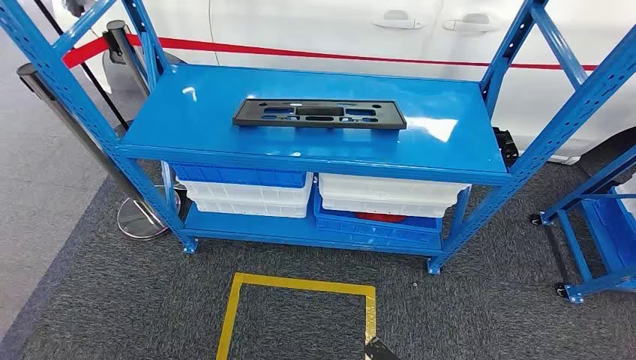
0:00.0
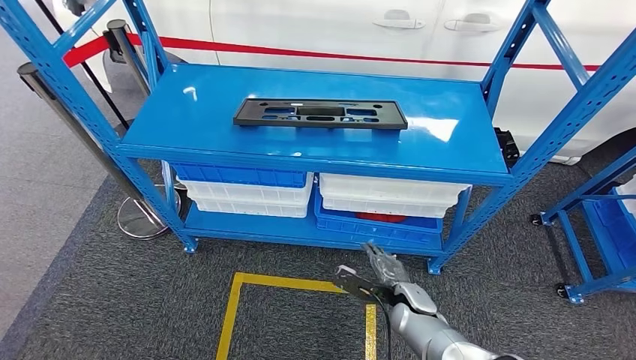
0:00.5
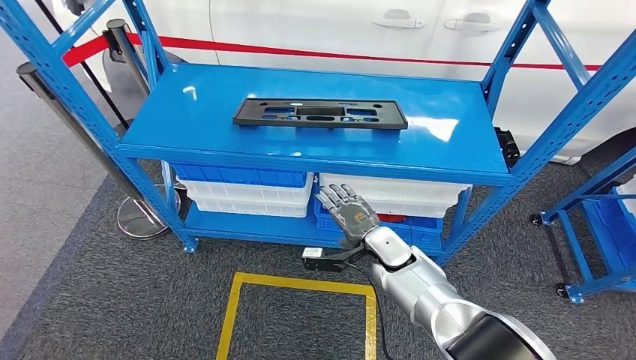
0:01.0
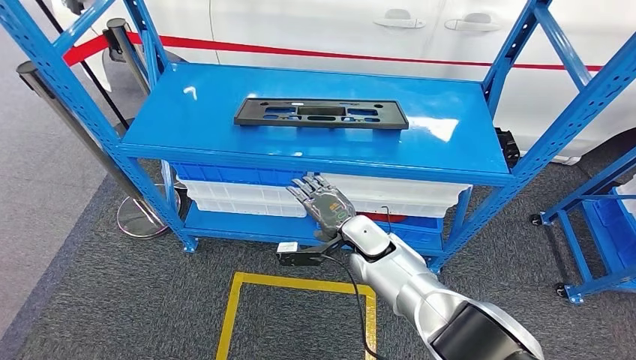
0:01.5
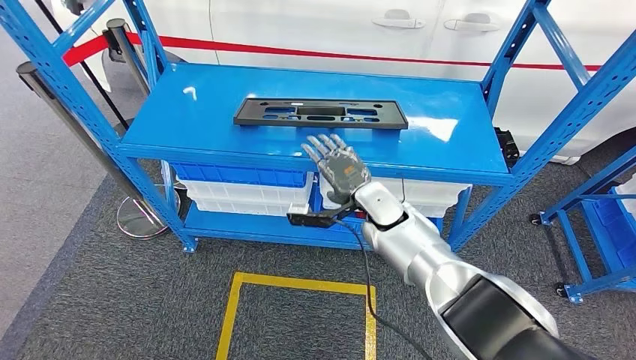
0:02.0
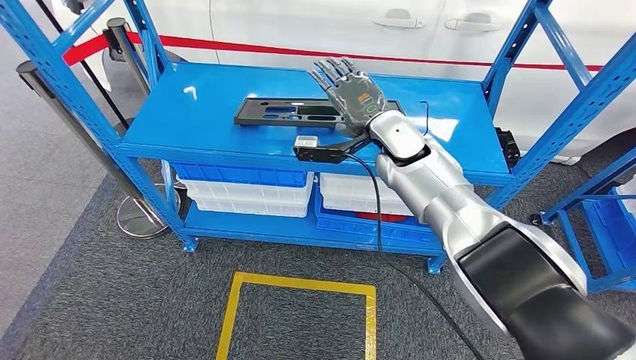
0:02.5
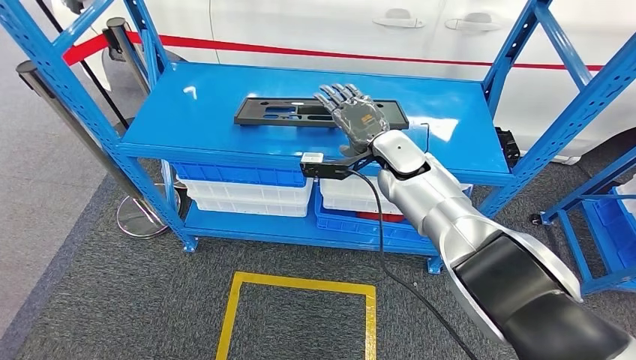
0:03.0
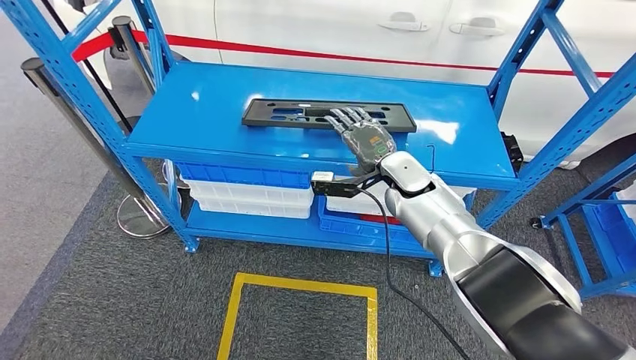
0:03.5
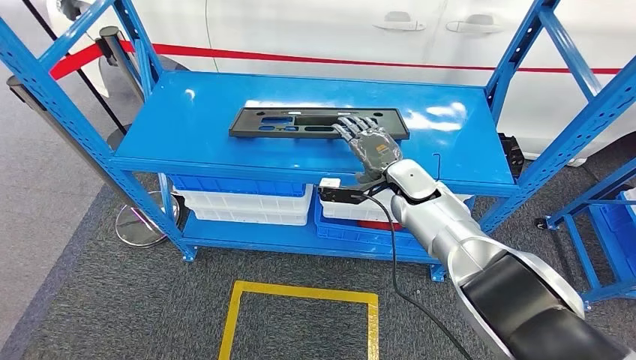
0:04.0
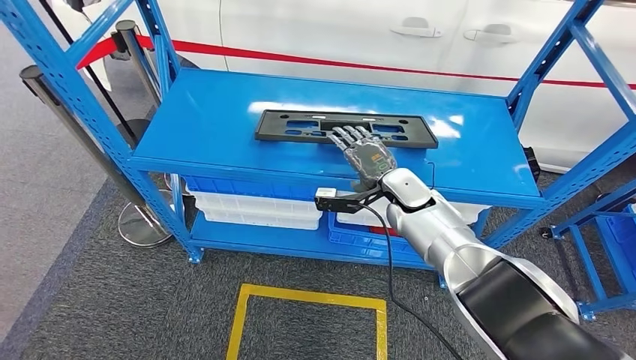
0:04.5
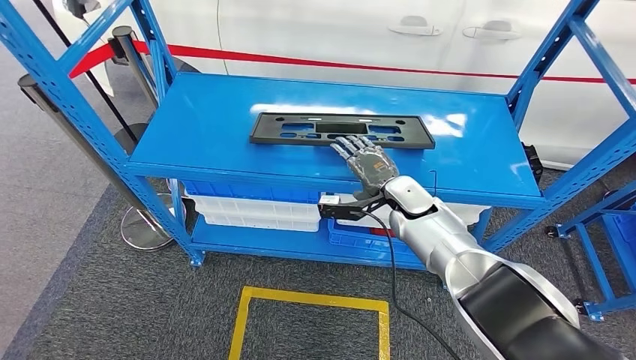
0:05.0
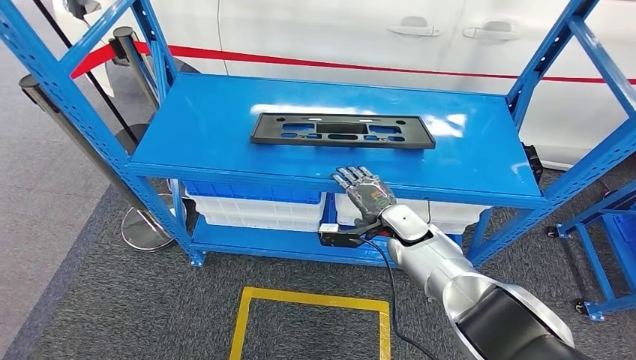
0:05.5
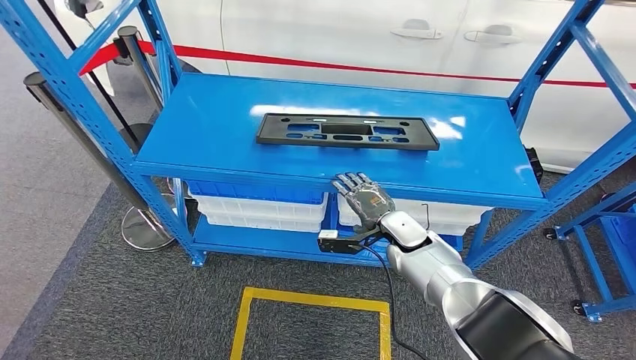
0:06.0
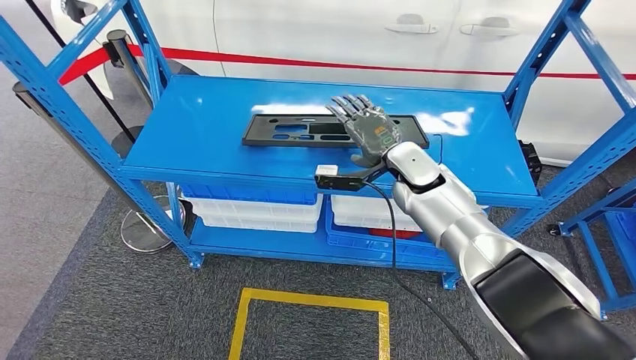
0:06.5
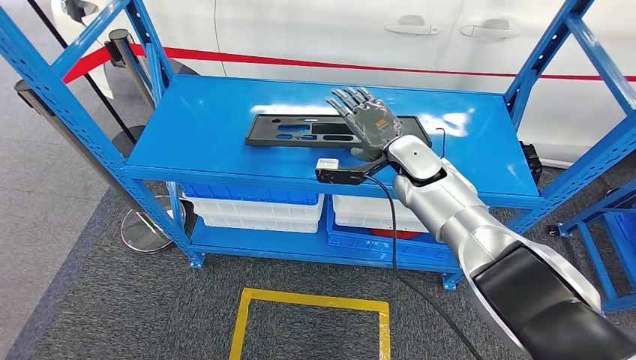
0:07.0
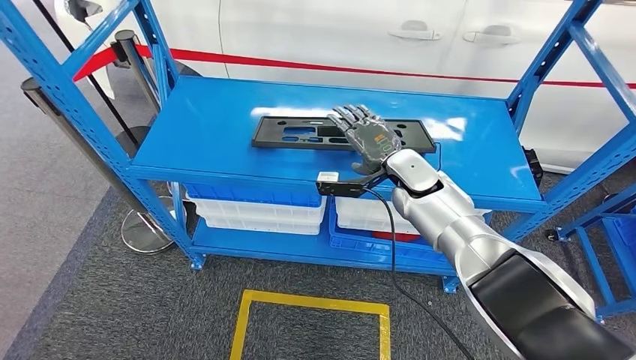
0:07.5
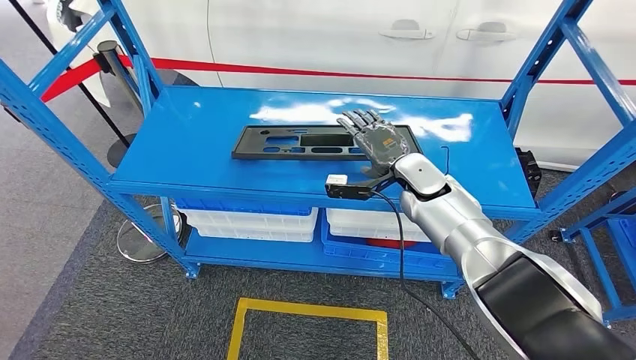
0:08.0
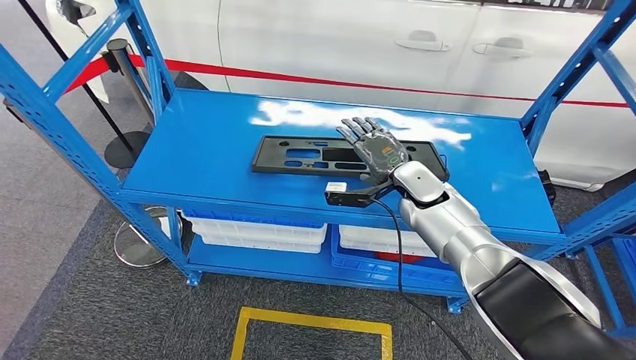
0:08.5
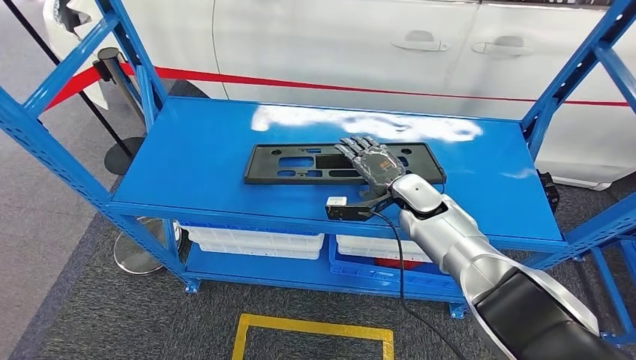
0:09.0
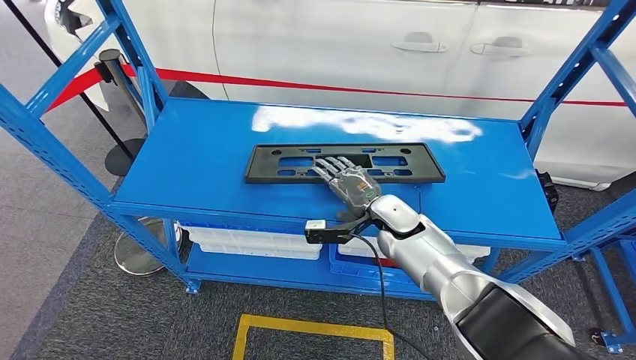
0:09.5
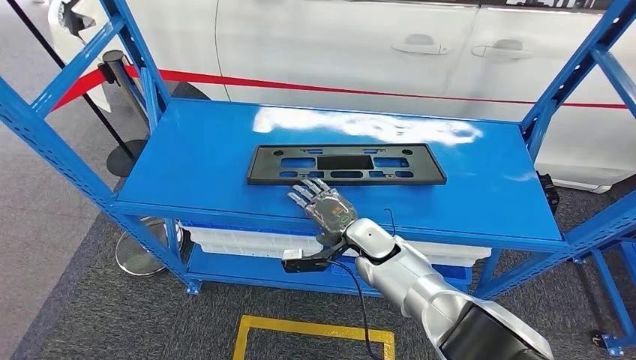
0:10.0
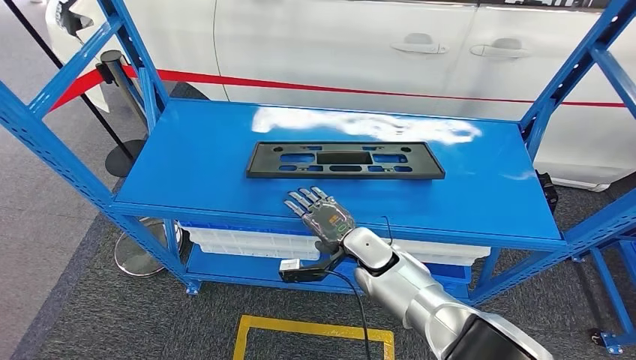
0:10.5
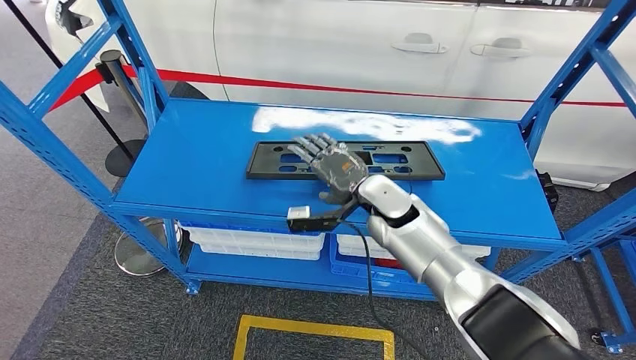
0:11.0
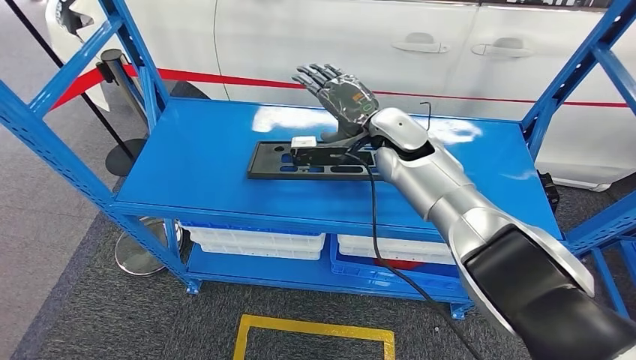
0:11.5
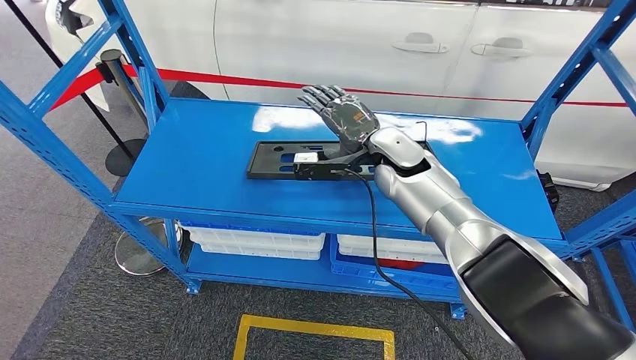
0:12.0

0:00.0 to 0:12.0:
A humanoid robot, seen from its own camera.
0:10.0 to 0:12.0: The right hand moves upward and forward, some 20 cm.

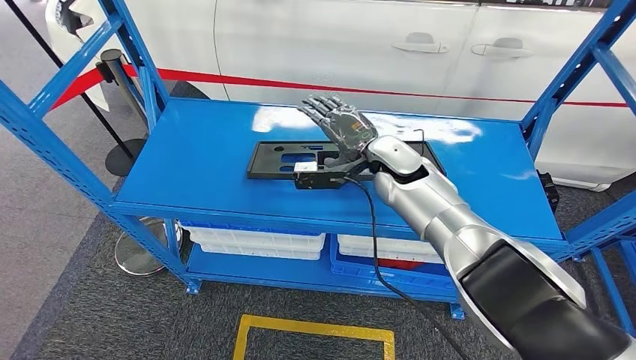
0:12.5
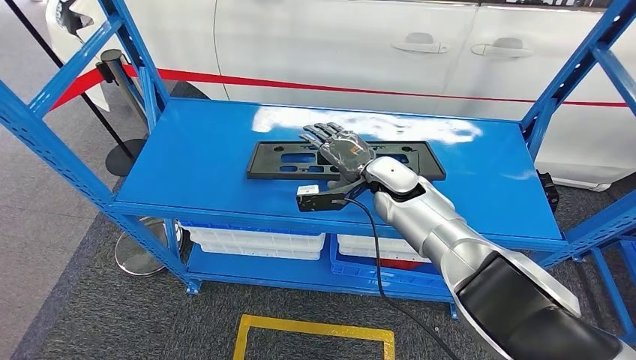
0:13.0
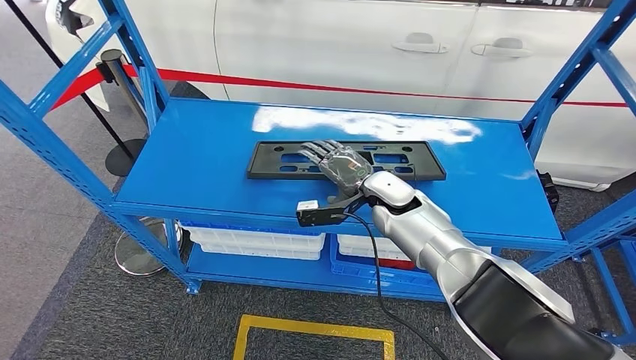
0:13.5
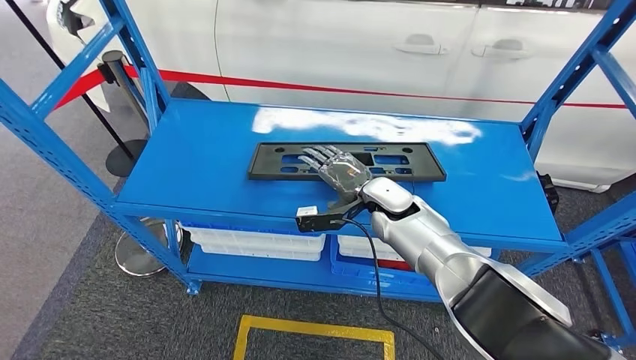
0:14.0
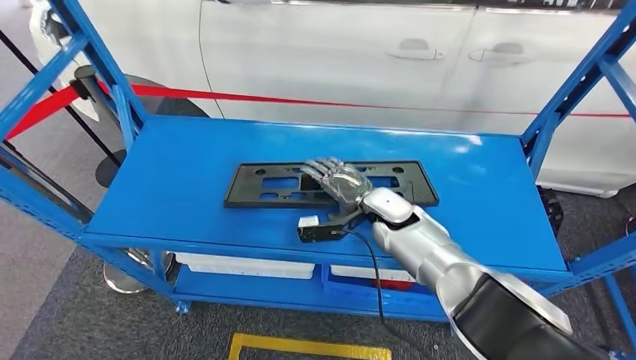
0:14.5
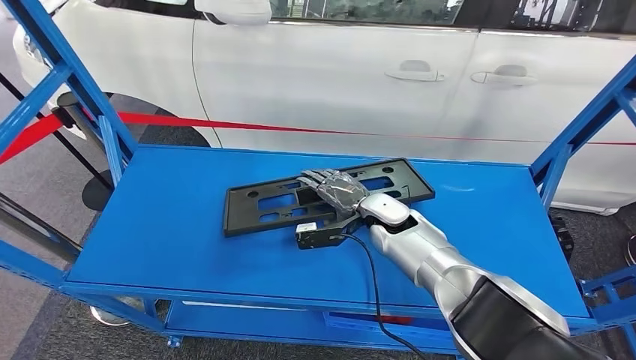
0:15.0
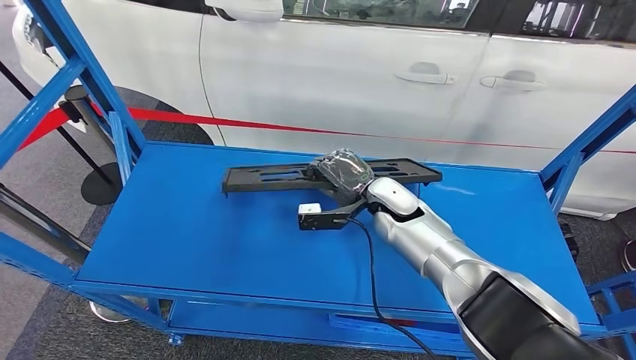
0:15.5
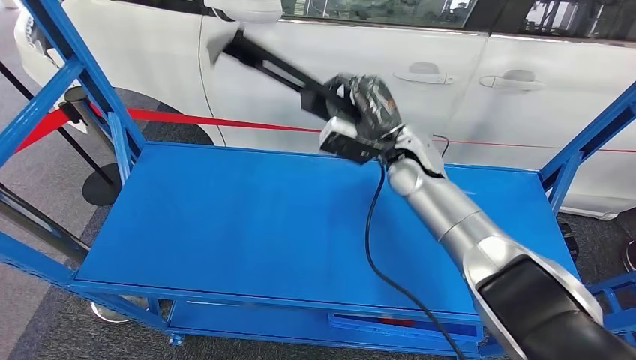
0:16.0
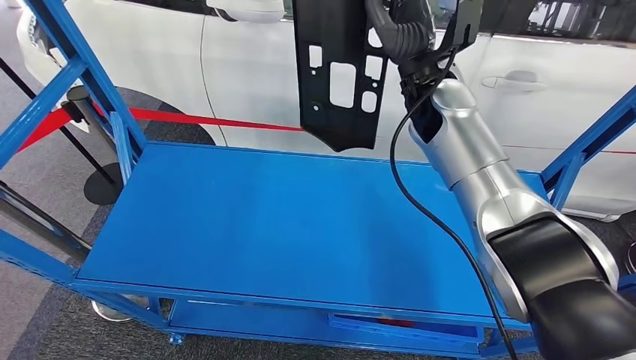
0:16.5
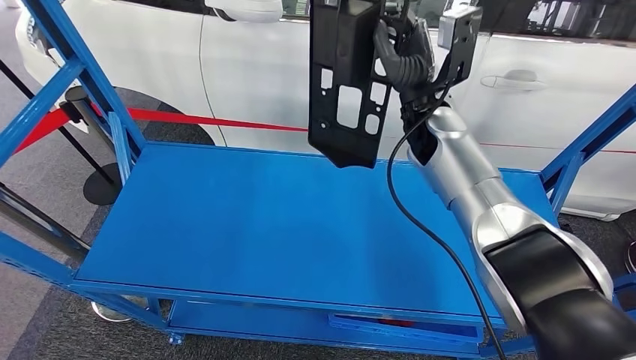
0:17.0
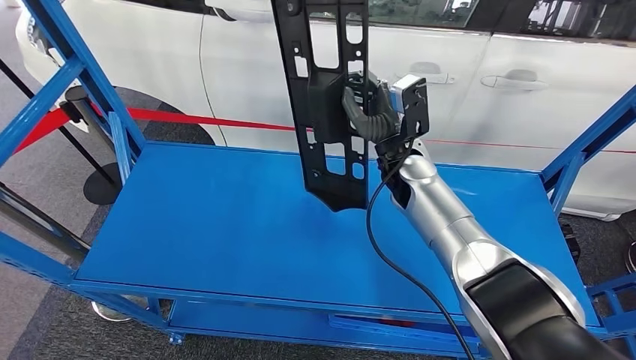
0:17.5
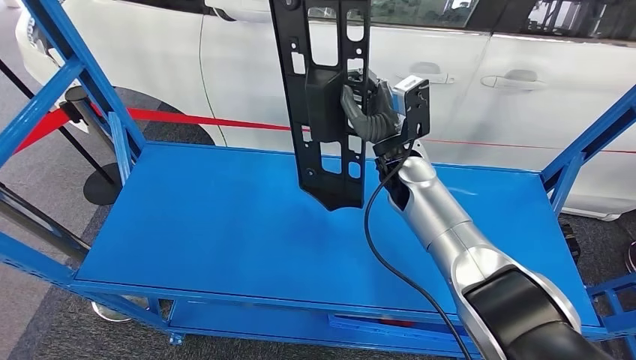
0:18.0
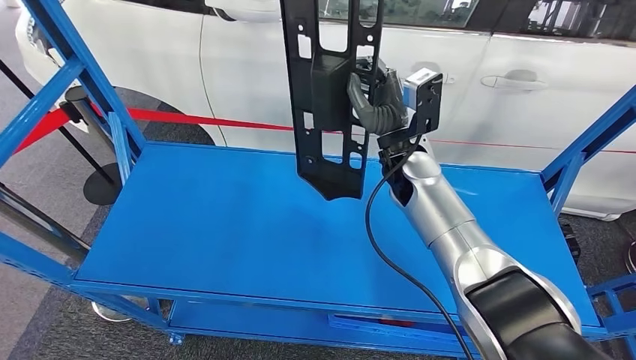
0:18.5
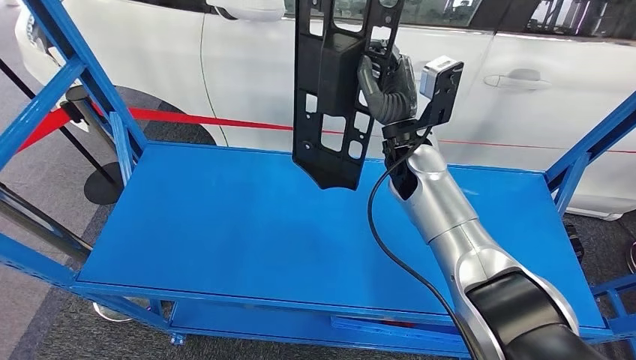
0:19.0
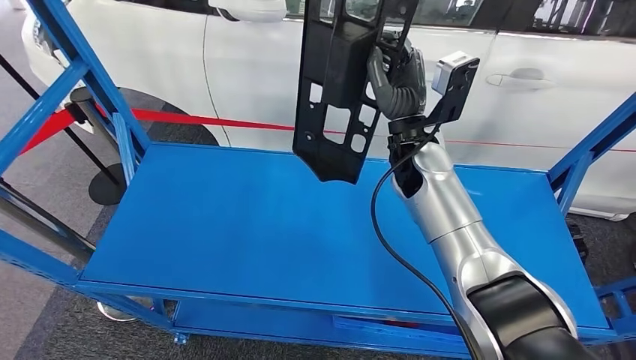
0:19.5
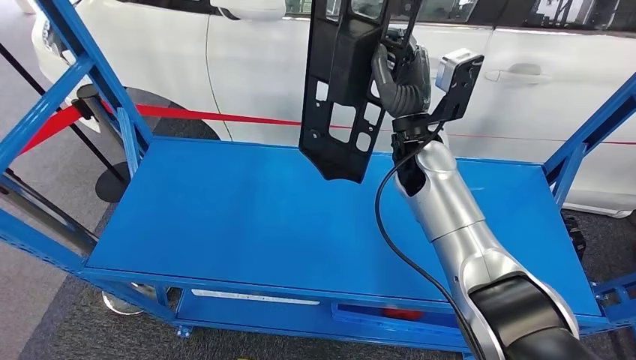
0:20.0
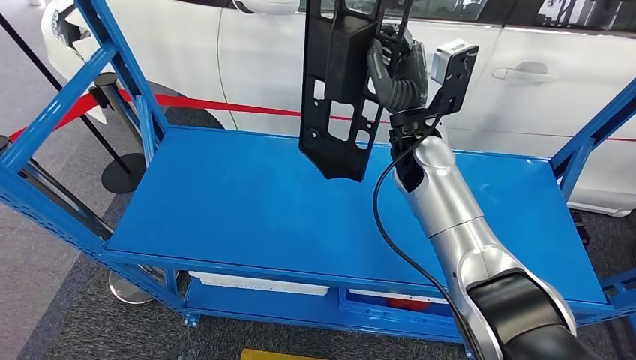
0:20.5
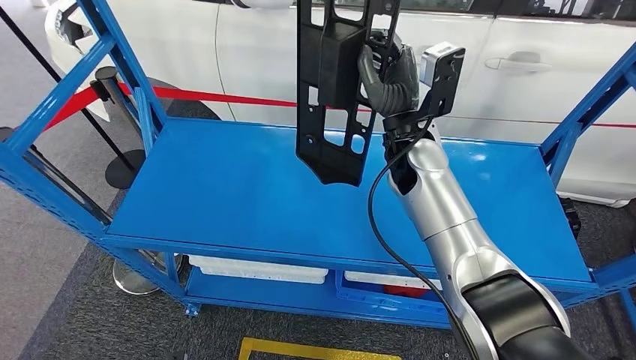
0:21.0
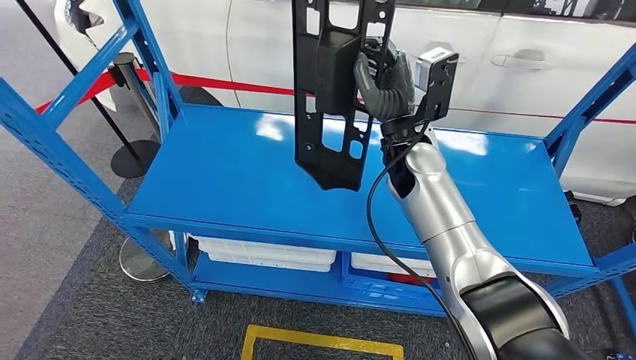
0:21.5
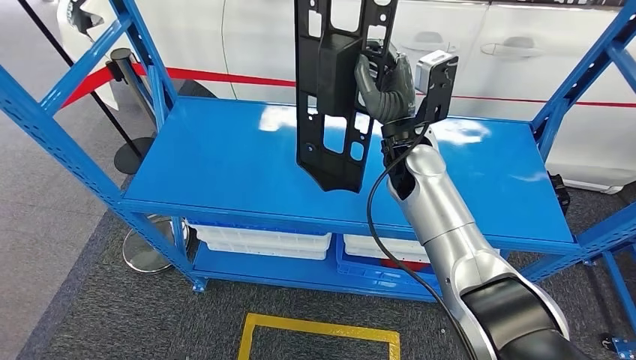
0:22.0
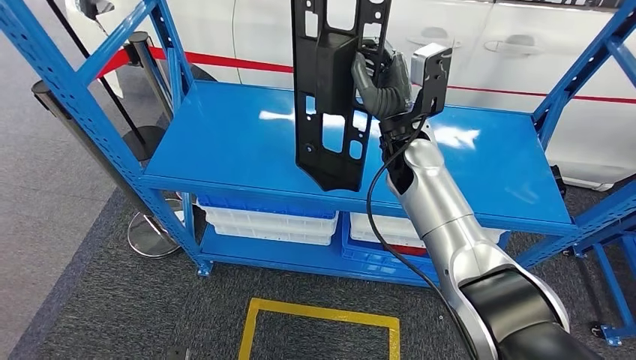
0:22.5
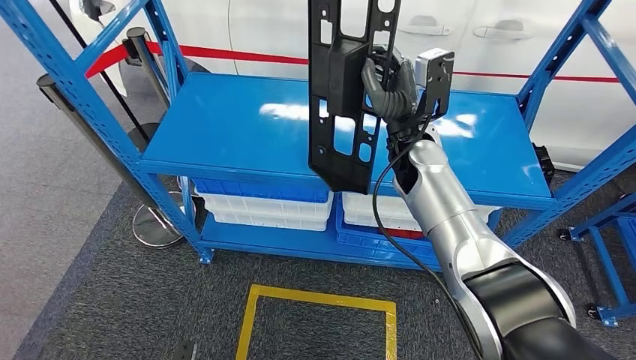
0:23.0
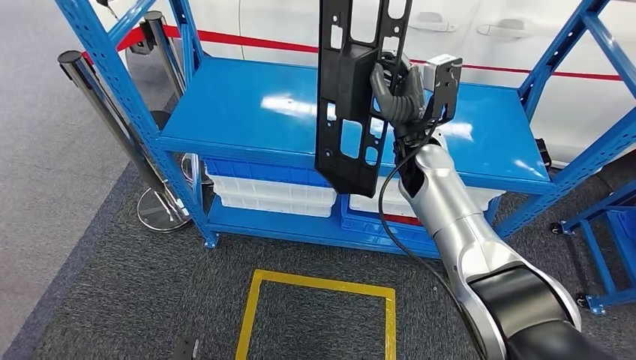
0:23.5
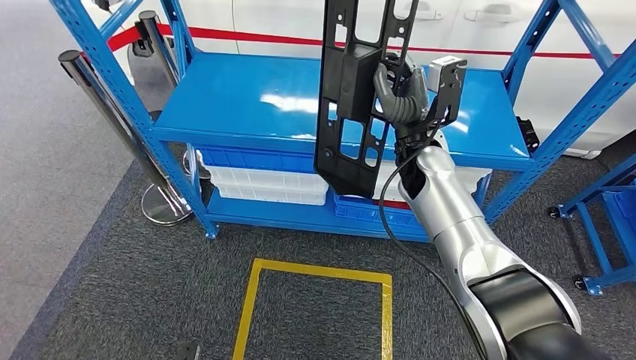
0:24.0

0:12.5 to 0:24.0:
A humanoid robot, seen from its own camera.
Step, 0:12.5 to 0:16.0: Pick up the large material from the shelf.
